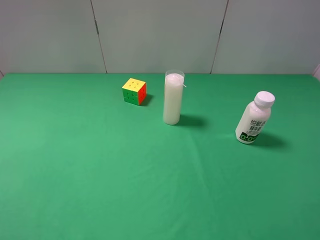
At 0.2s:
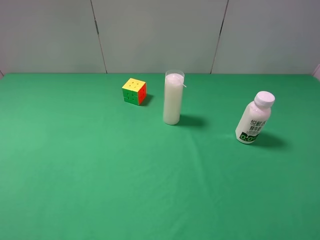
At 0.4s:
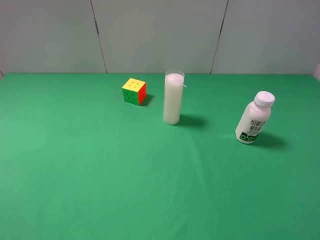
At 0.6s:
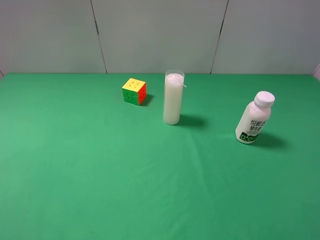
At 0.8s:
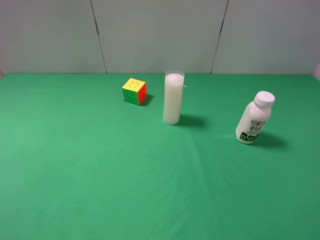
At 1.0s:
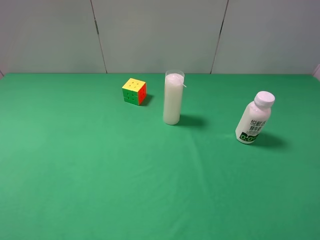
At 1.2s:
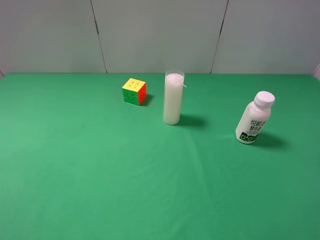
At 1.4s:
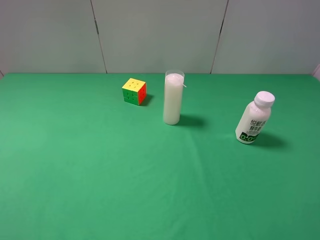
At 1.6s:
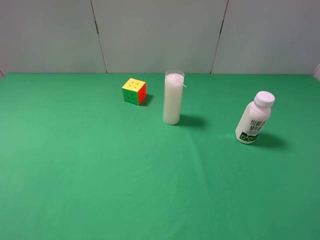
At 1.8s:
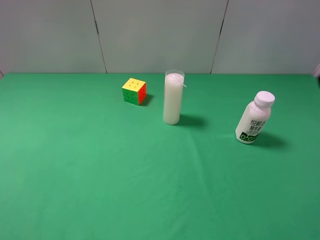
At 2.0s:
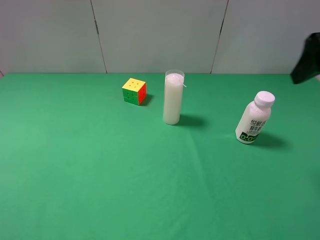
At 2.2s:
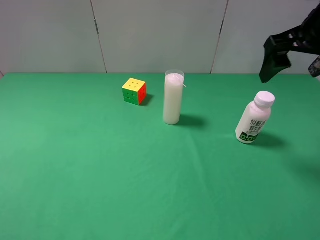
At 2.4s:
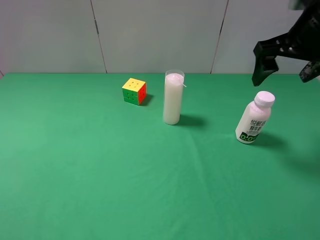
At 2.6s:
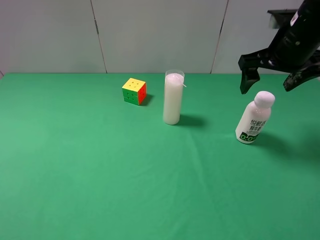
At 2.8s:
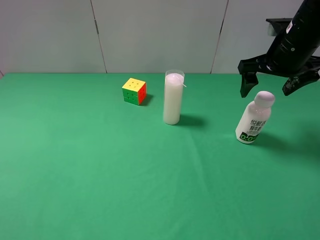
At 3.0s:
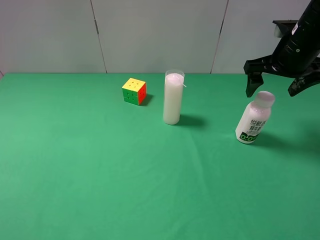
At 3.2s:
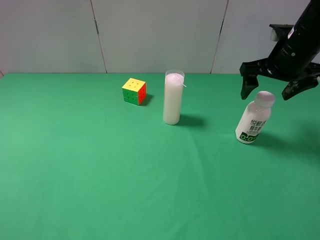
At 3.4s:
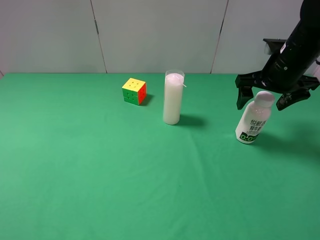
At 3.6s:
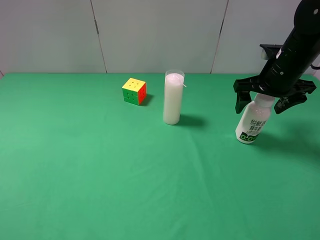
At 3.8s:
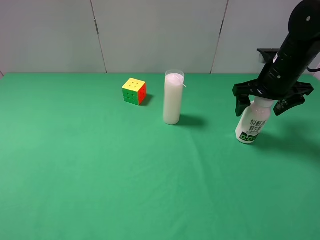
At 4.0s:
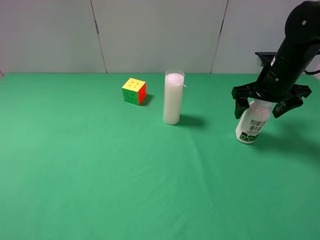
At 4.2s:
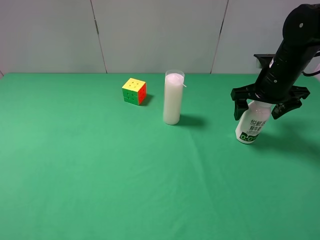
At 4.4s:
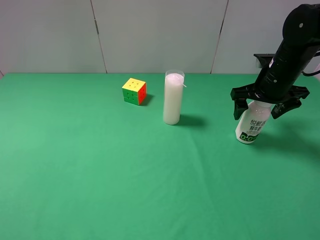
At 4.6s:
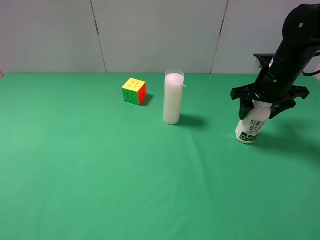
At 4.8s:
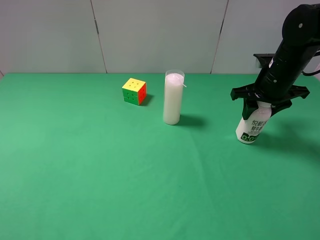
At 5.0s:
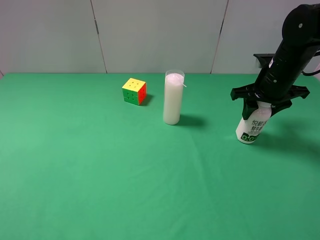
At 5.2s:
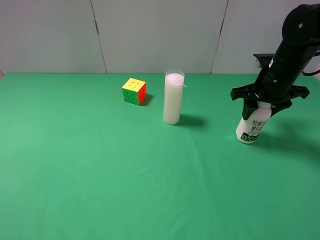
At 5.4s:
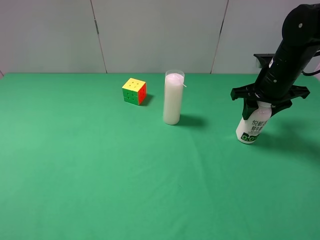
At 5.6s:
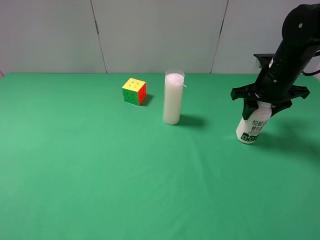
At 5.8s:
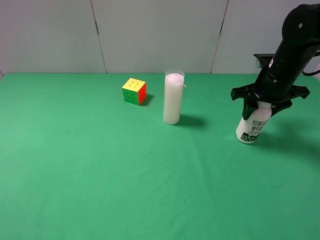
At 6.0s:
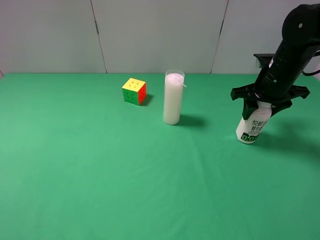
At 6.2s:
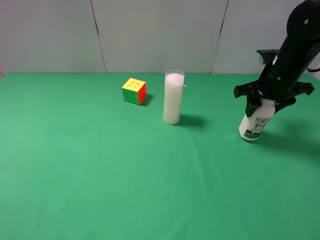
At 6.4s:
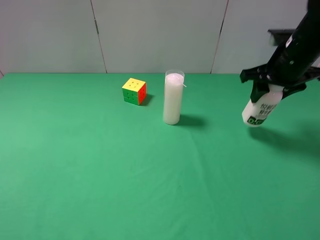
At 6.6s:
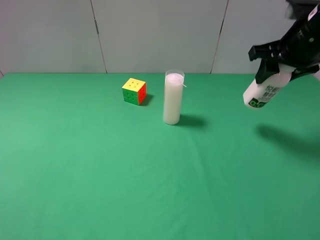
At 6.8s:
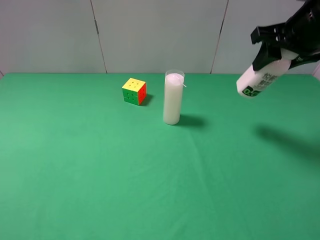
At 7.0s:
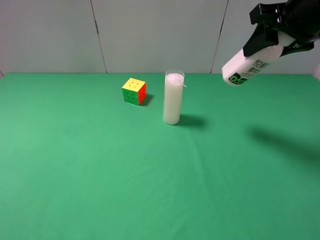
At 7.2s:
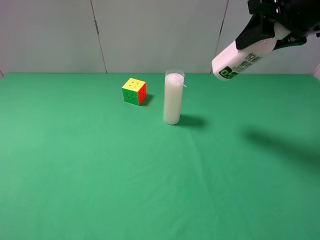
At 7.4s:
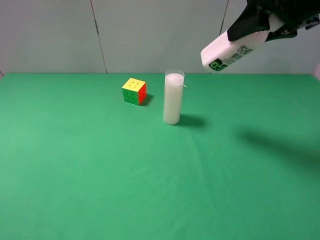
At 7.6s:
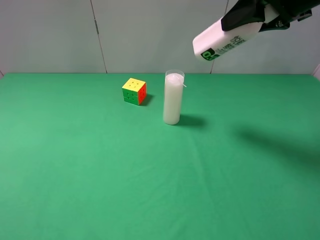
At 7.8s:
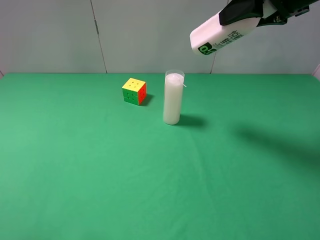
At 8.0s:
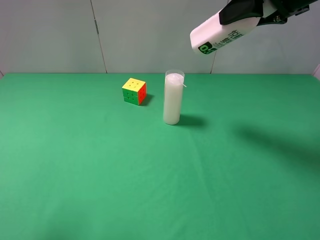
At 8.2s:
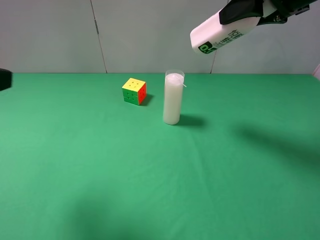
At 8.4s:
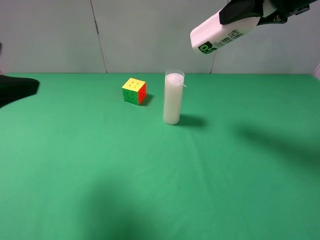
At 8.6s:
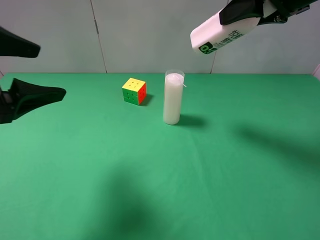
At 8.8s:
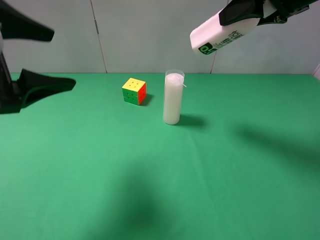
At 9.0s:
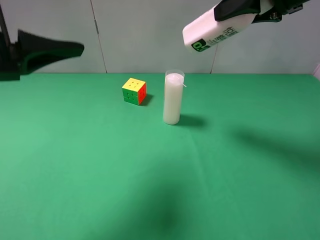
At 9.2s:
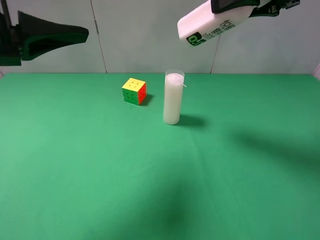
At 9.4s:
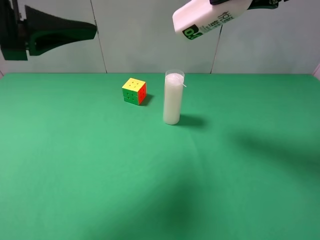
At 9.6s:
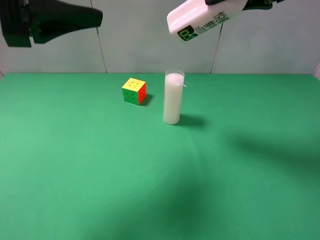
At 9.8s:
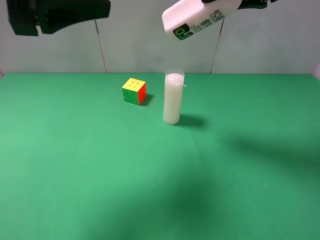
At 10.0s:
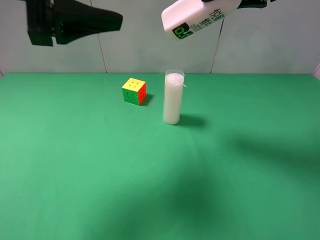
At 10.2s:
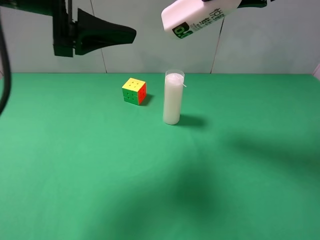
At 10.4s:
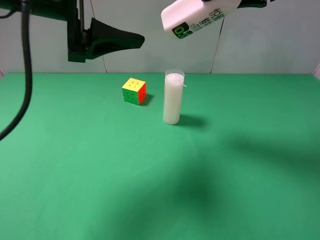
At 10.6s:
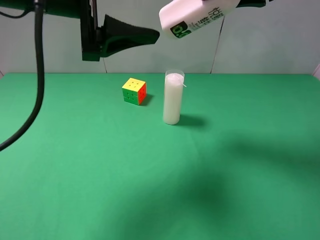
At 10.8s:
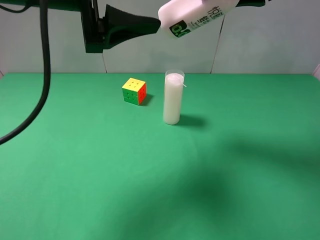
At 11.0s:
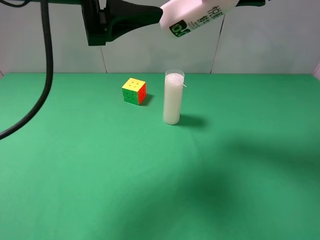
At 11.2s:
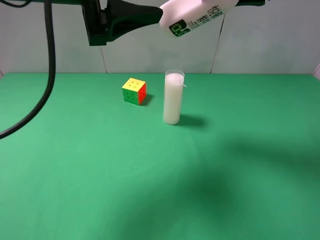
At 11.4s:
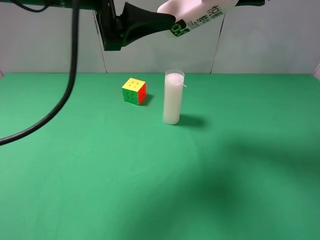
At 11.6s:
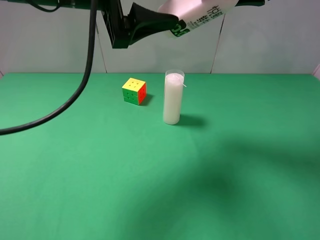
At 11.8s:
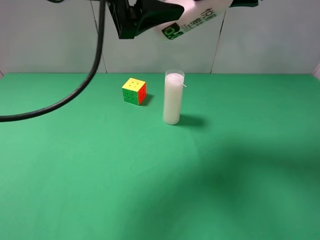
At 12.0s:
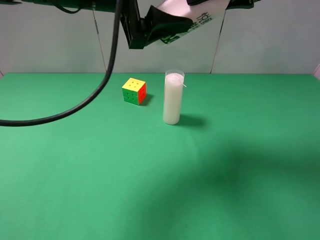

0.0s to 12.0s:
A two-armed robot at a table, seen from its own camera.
Task of the whole recording: use the right gripper to pick up the item and transfer it from the right gripper to the left gripper.
Step, 0.0s to 4.8s: Use the right gripper to grab the milk on the right side of the table.
1.6s to 3.0s: The right gripper heads forward, covering approximately 25 cm.
3.0s to 4.4s: The right gripper travels downward by some 5 cm.
4.4s to 6.0s: The right gripper closes up.
6.0s to 7.6s: The right gripper heads upward, covering approximately 15 cm.
7.6s to 9.0s: The left gripper heads forward and to the right, covering roughly 20 cm.
9.0s to 10.4s: The left gripper shifts some 10 cm to the right and forward.
10.4s to 12.0s: The left gripper travels to the right by about 5 cm.

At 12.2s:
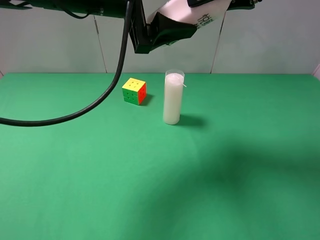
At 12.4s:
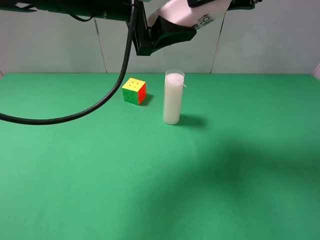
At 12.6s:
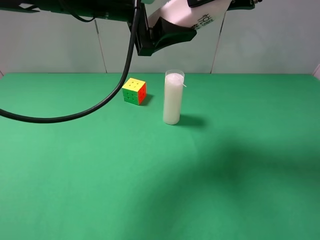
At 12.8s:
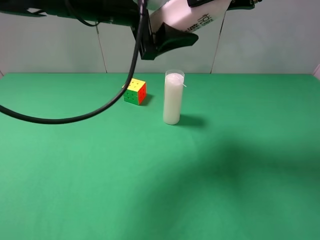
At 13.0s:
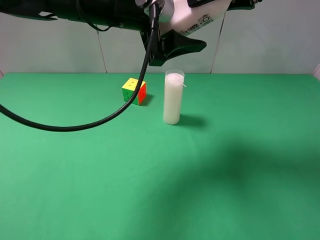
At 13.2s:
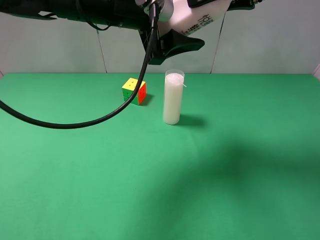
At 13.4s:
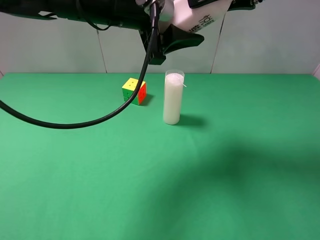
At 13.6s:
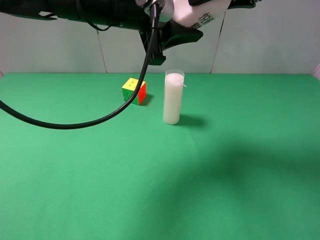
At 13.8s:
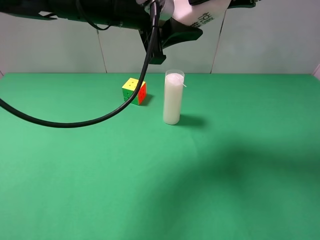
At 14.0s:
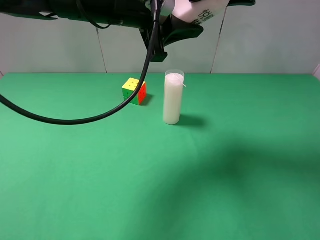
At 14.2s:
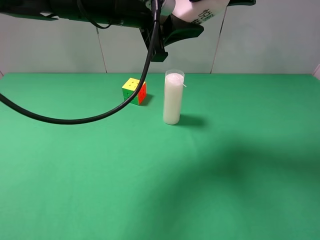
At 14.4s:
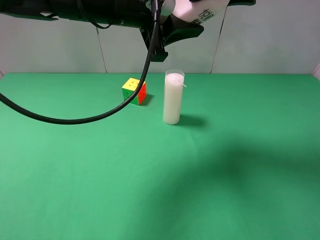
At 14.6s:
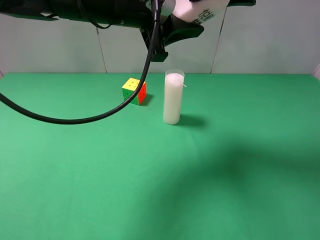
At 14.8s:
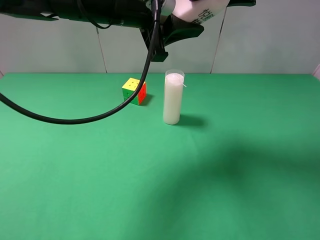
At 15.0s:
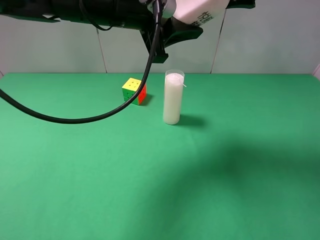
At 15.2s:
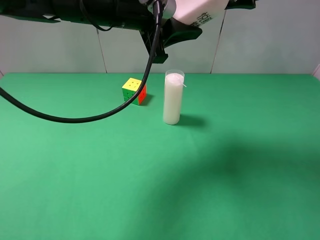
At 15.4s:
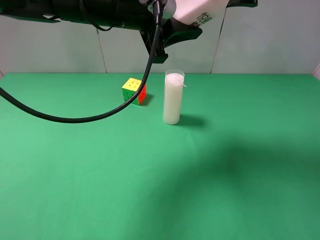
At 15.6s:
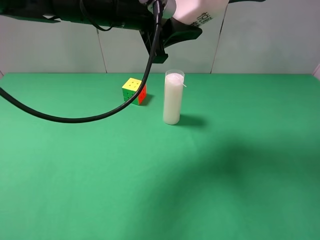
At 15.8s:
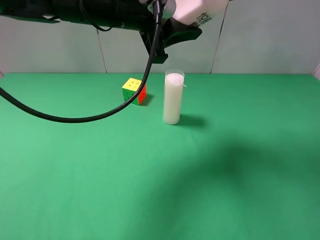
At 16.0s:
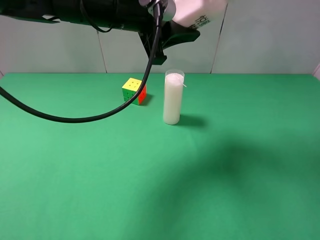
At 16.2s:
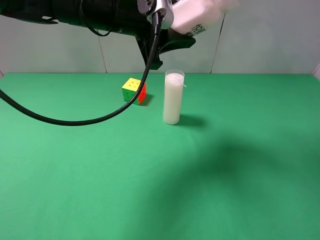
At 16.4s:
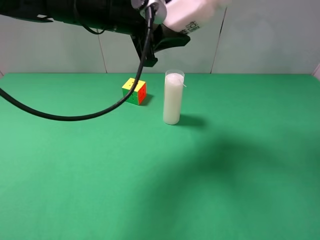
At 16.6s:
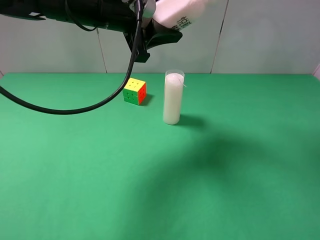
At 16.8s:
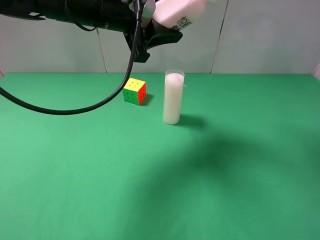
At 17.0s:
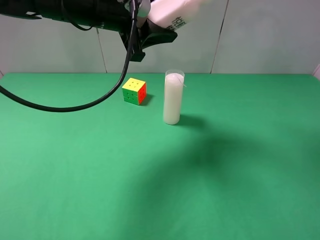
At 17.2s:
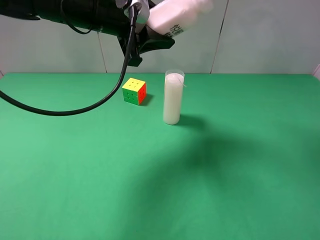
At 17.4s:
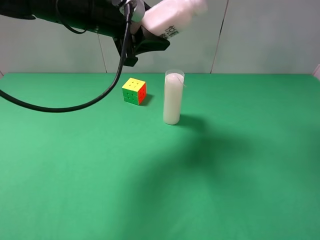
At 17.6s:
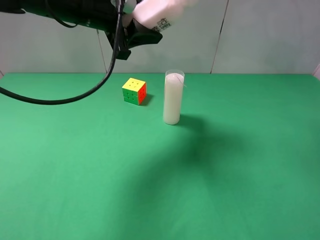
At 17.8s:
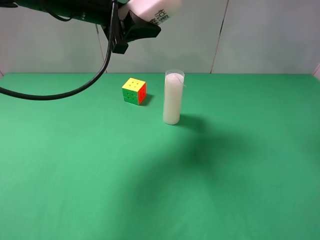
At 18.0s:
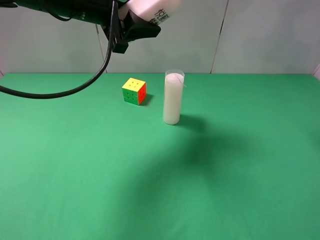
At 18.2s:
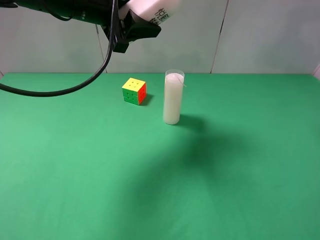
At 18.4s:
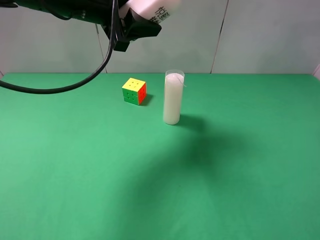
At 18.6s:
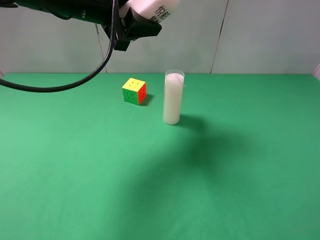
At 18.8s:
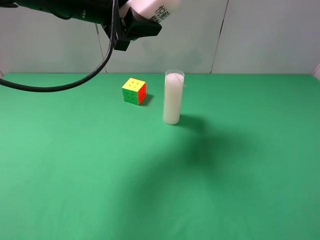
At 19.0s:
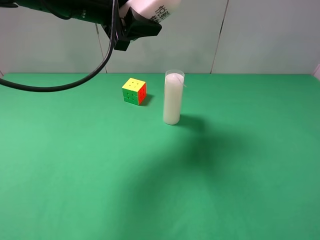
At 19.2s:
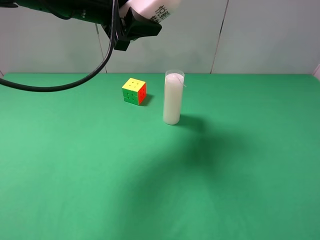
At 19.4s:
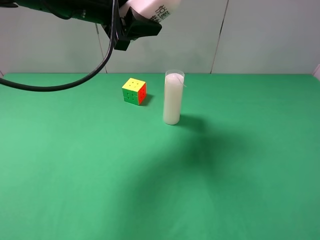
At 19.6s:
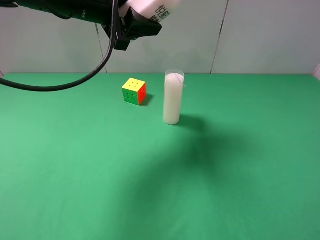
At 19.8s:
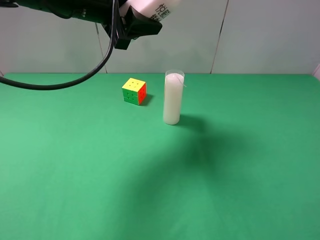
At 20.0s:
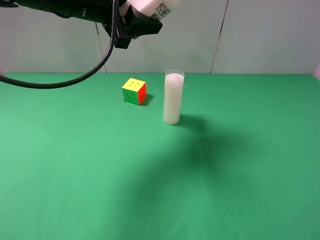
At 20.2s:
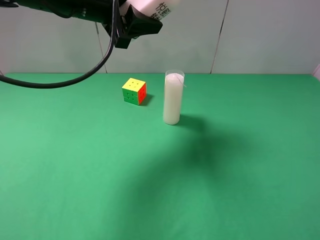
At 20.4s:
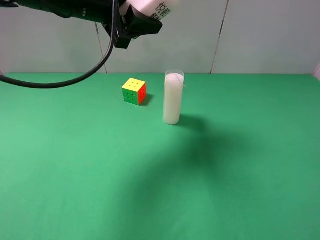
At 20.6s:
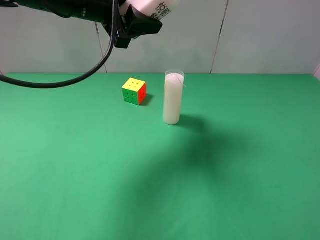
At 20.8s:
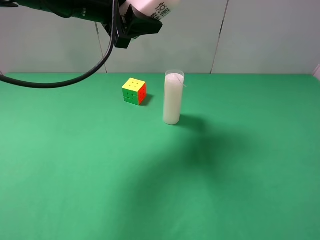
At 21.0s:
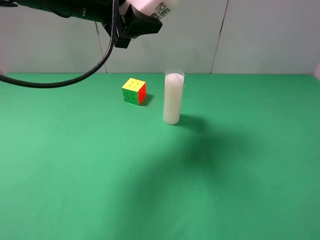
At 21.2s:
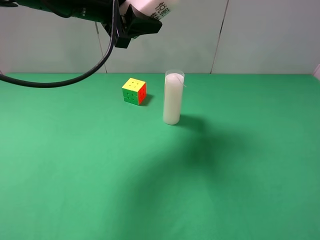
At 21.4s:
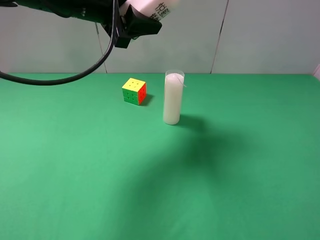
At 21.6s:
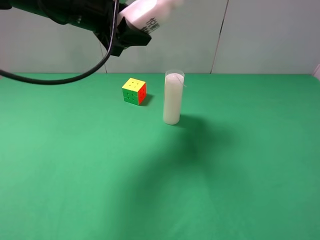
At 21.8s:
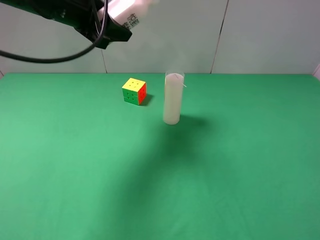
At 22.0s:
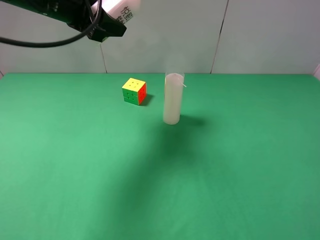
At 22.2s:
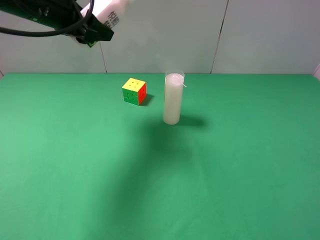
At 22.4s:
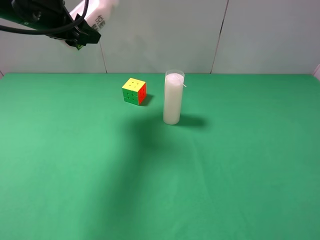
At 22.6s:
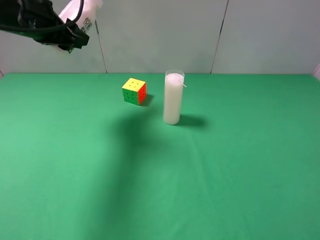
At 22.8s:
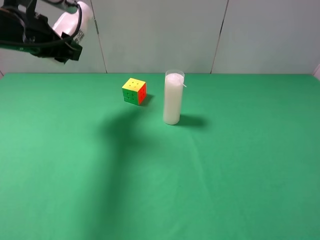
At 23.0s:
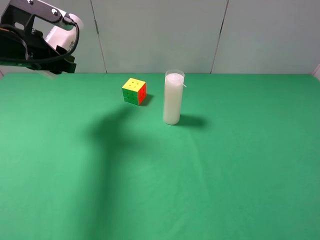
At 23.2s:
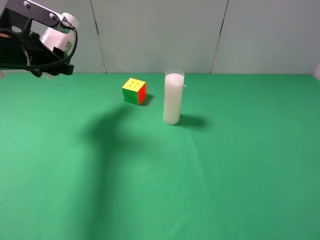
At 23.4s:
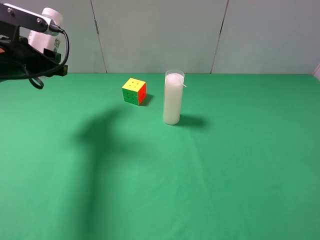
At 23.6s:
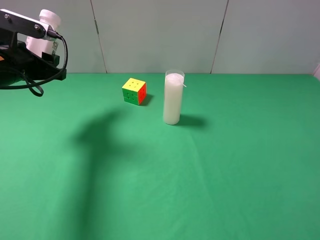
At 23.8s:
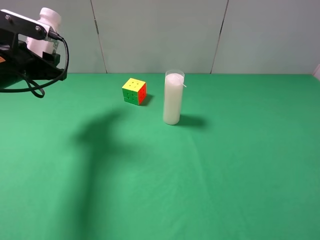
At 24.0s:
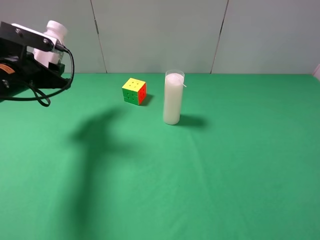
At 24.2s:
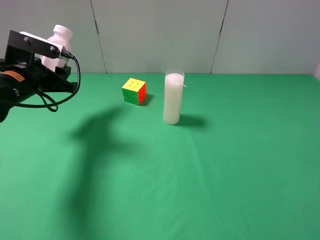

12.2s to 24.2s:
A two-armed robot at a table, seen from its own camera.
Task of the whole recording: use the right gripper to pick up the item and transfer it from the right gripper to the left gripper.
Step, 12.2s to 16.0s: Pass the milk to the left gripper.
12.2s to 13.8s: The left gripper closes.
13.8s to 15.2s: The right gripper opens.
15.2s to 16.6s: The grippers move only a little.
16.6s to 18.2s: The right gripper heads to the right, covering roughly 10 cm.
18.2s to 19.8s: The right gripper travels backward by about 30 cm.
19.8s to 21.2s: There are only small adjustments of the grippers.
21.2s to 22.6s: The left gripper heads to the left, covering roughly 10 cm.
22.6s to 24.2s: The left gripper moves downward, some 10 cm.
